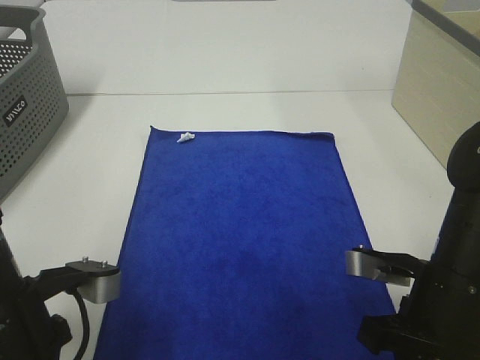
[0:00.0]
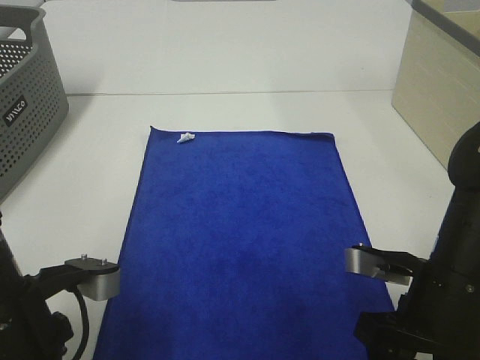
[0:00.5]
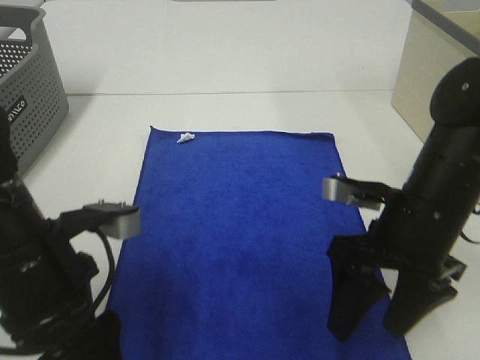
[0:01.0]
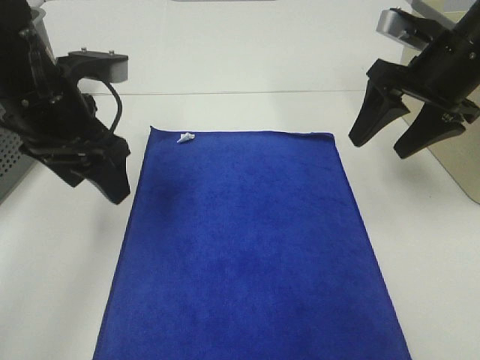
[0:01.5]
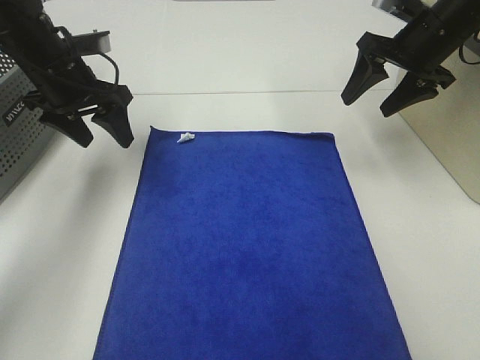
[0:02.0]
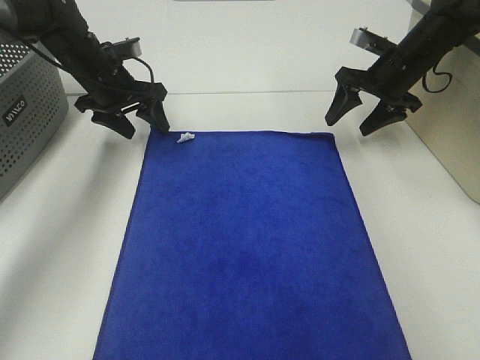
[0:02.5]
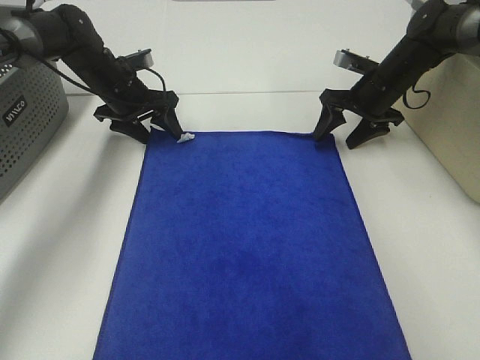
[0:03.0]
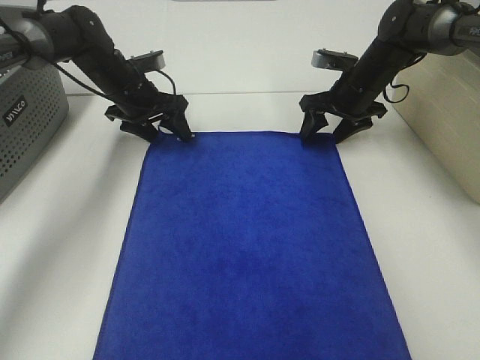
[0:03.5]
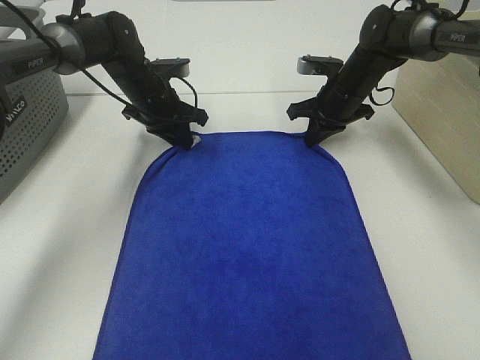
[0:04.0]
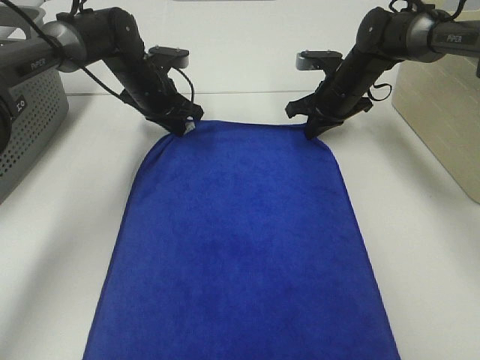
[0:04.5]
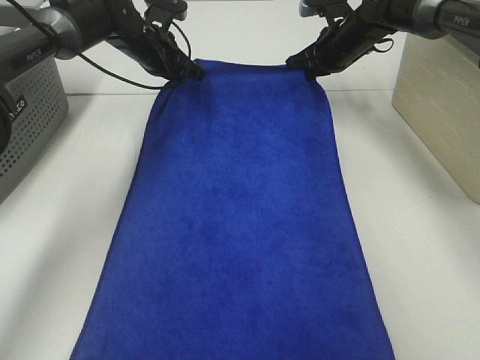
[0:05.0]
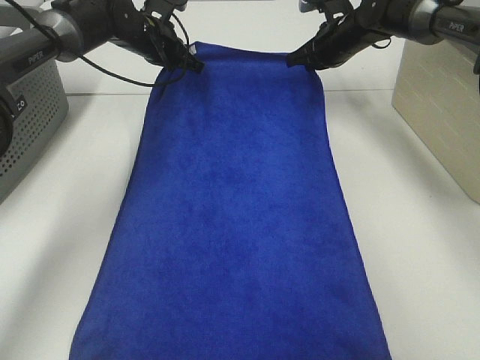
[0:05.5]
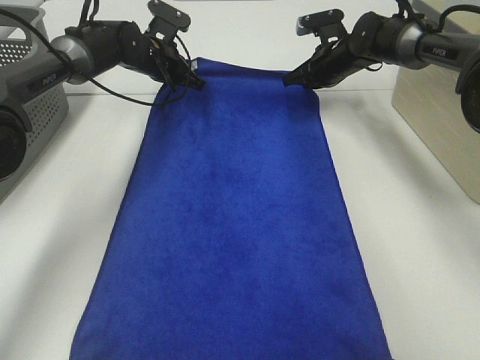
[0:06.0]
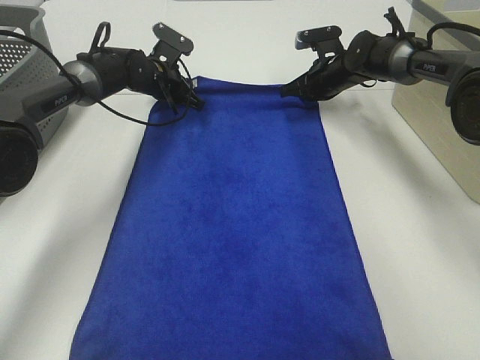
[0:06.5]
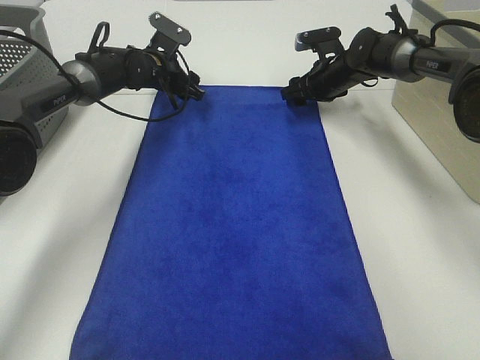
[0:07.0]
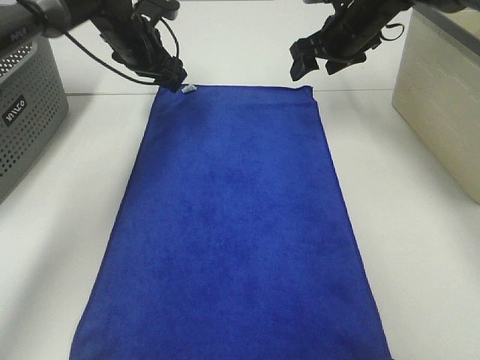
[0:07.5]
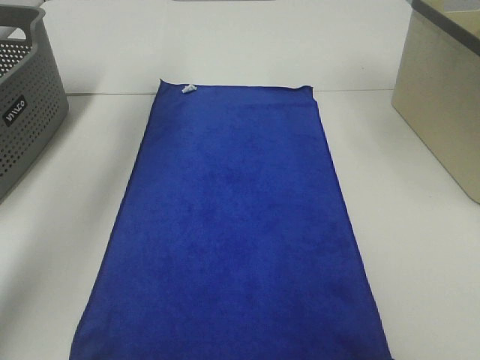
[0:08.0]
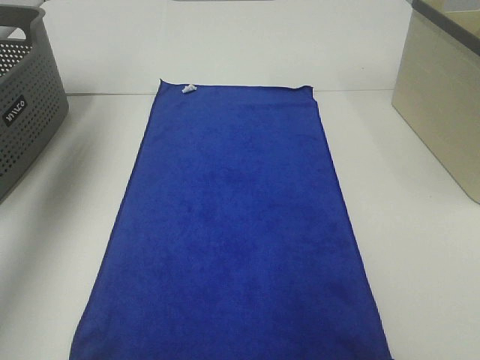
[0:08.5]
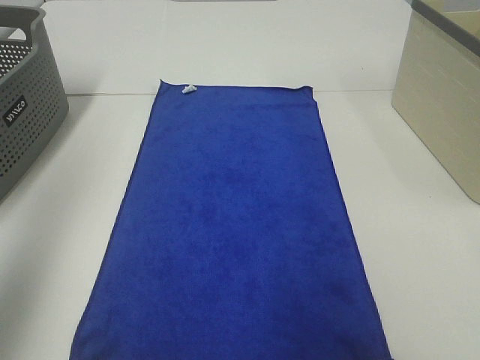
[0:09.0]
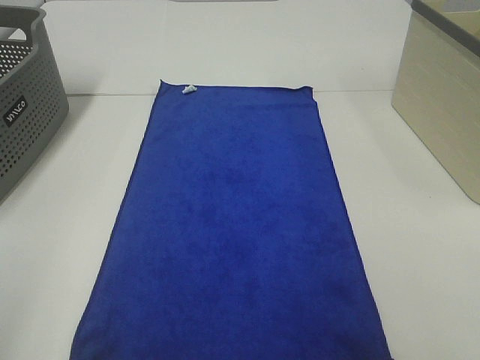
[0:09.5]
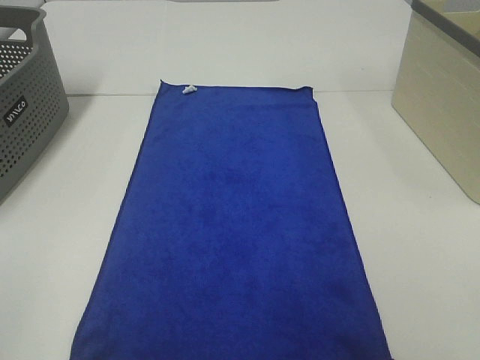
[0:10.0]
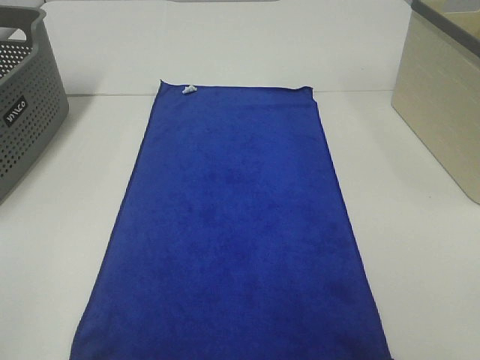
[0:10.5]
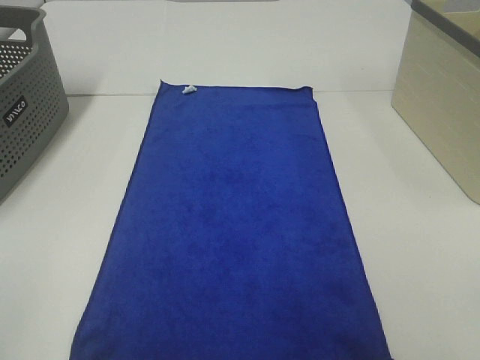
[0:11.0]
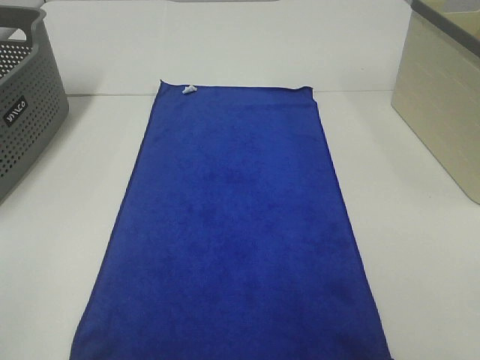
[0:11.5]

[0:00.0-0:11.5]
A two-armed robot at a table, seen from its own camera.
Task of the whole recording: Remove the towel and place it.
0:00.0 to 0:02.0: The two grippers go roughly 30 cm forward. The right gripper opens up; the left gripper opens its fingers.
0:02.0 to 0:04.0: The left gripper goes approximately 15 cm downward, forward and to the right, and closes. The right gripper is displaced downward, to the left and forward by approximately 15 cm, and closes its fingers.
0:04.0 to 0:06.0: Both grippers move forward, about 5 cm.
0:06.0 to 0:07.5: Both grippers travel together upward, roughly 10 cm. The left gripper opens. Meanwhile the right gripper opens up.
0:07.5 to 0:09.5: Both grippers travel together backward, some 50 cm.
